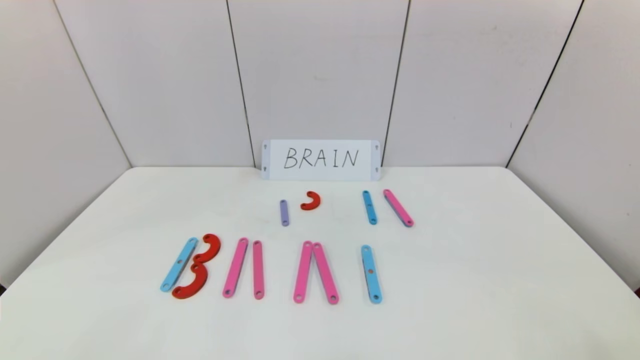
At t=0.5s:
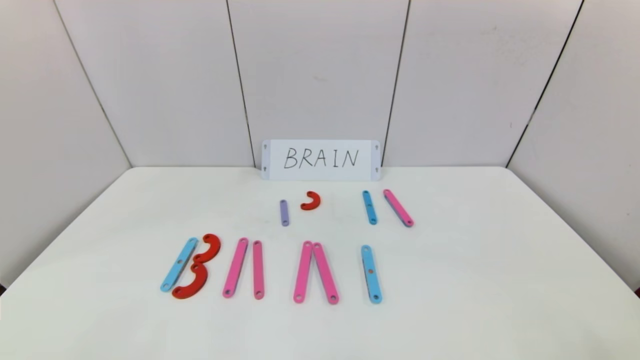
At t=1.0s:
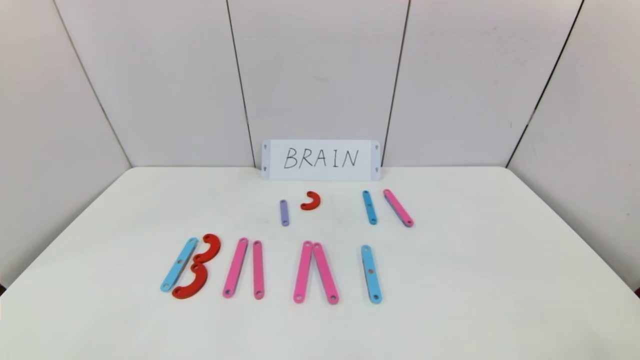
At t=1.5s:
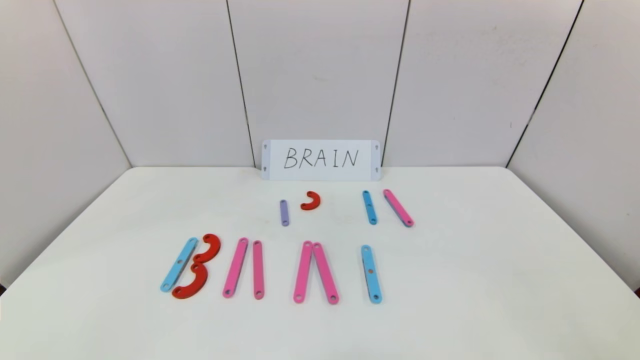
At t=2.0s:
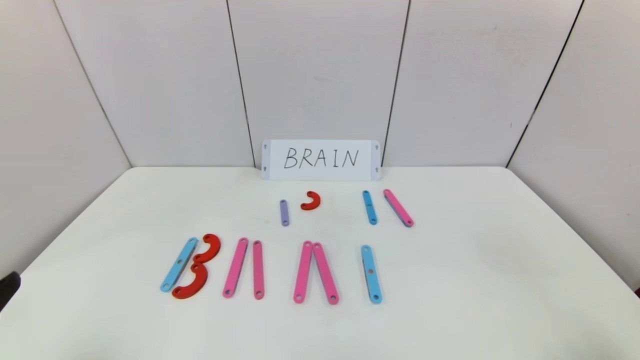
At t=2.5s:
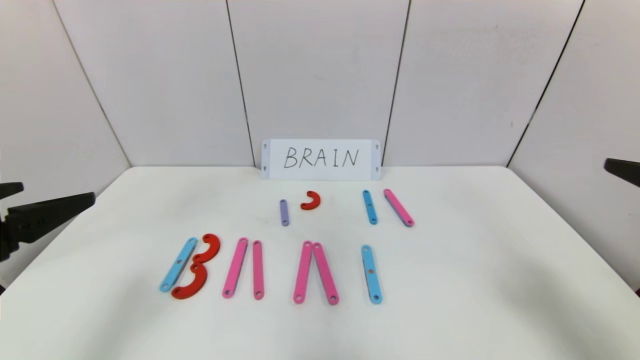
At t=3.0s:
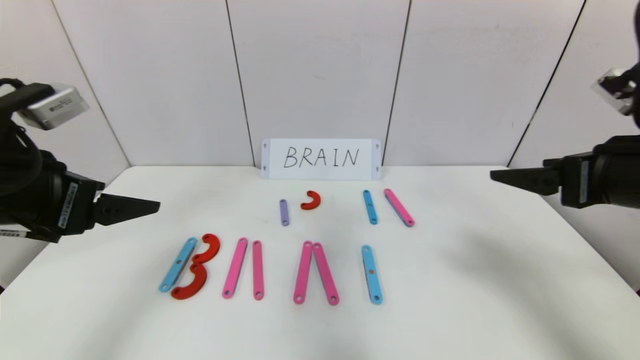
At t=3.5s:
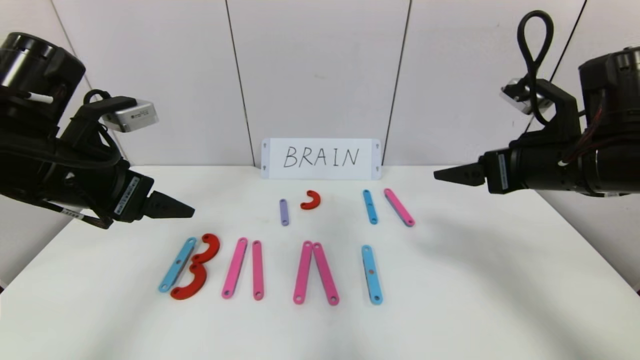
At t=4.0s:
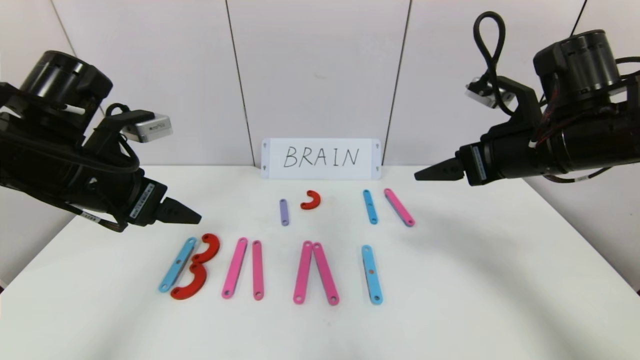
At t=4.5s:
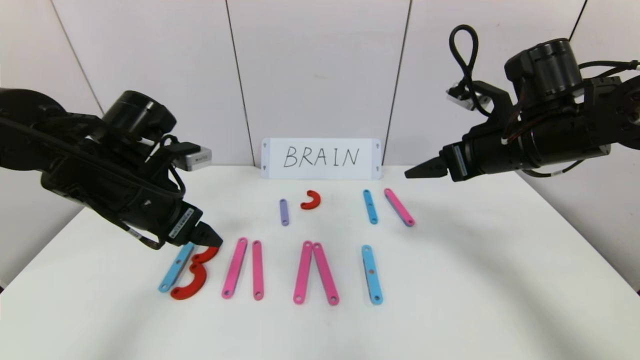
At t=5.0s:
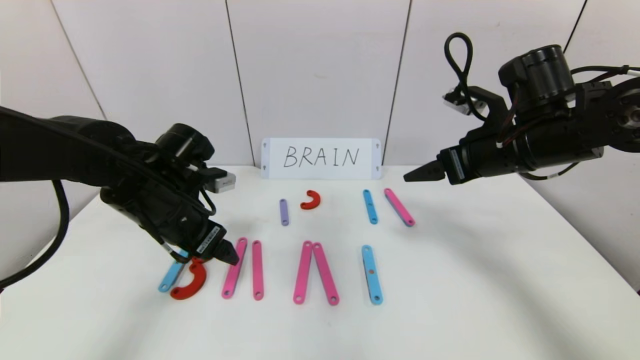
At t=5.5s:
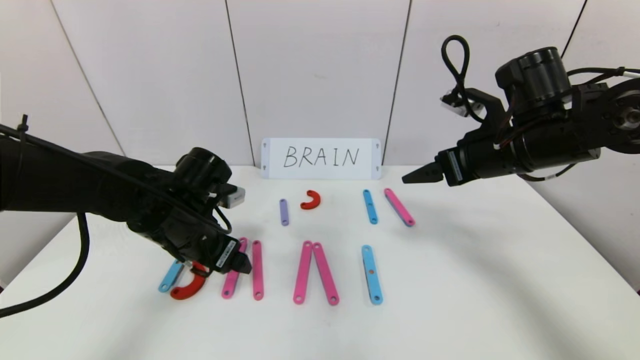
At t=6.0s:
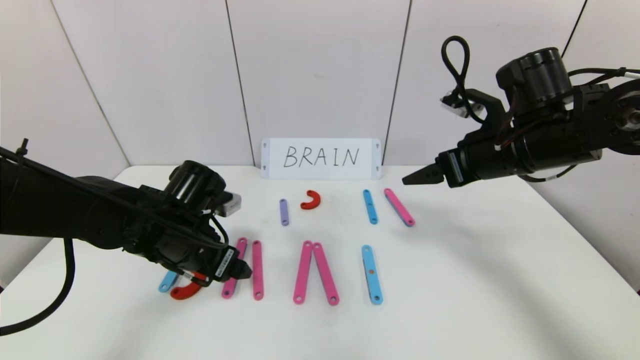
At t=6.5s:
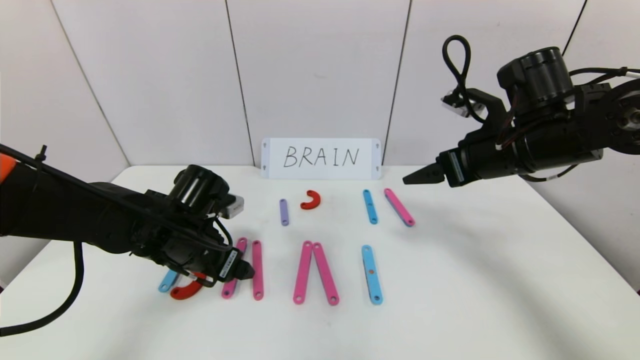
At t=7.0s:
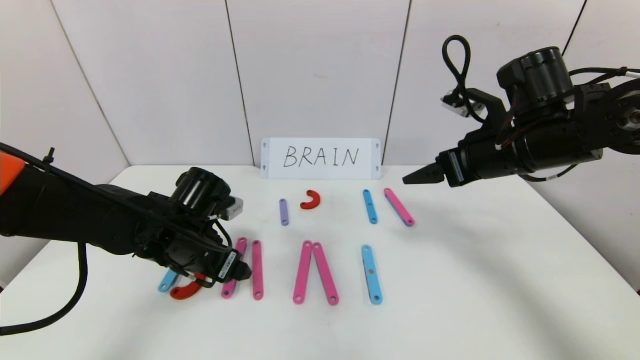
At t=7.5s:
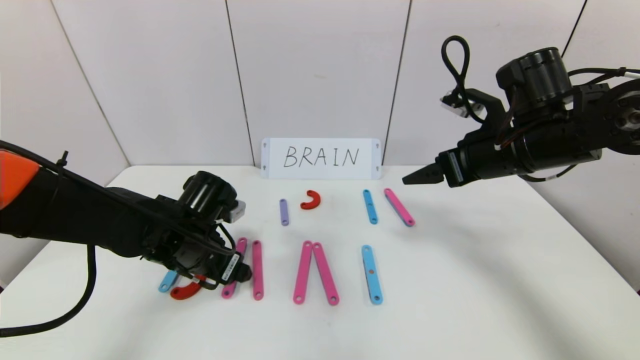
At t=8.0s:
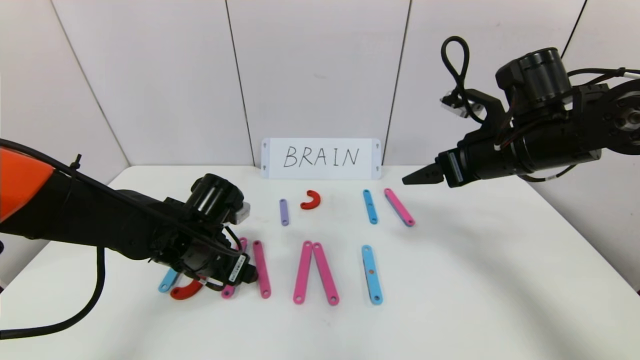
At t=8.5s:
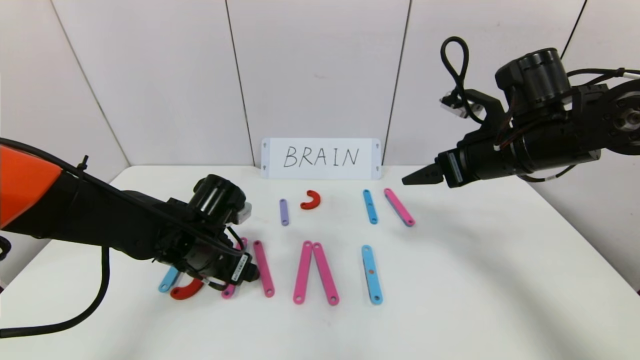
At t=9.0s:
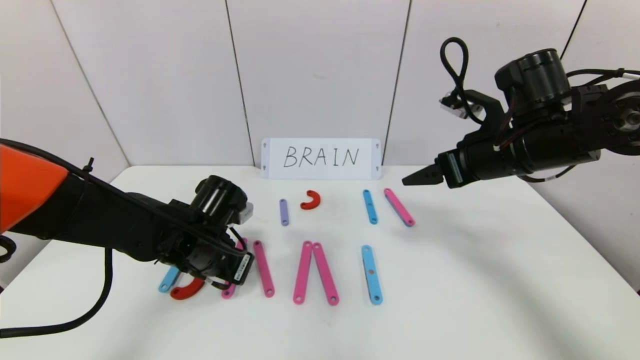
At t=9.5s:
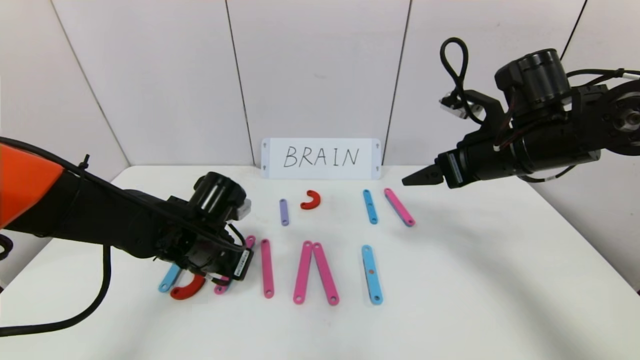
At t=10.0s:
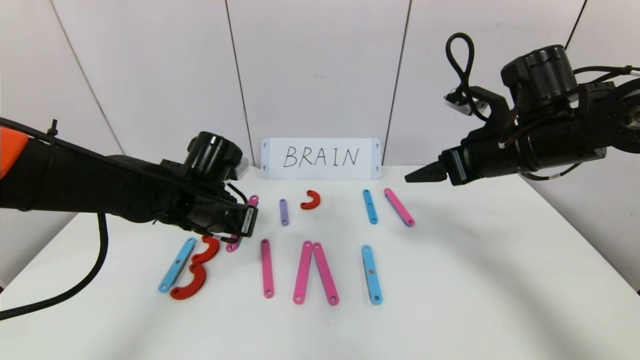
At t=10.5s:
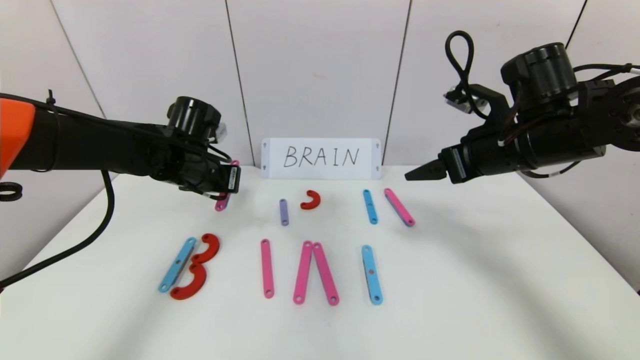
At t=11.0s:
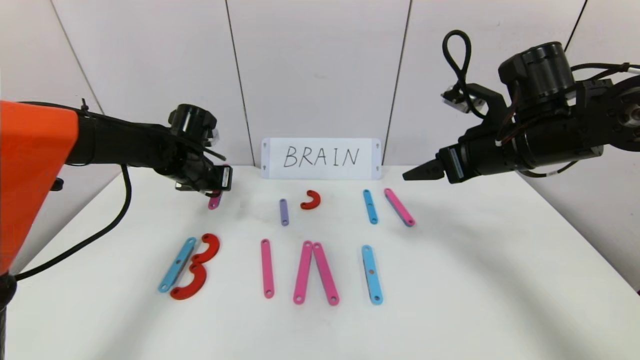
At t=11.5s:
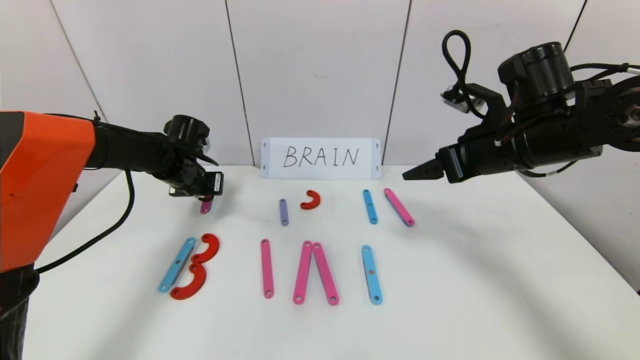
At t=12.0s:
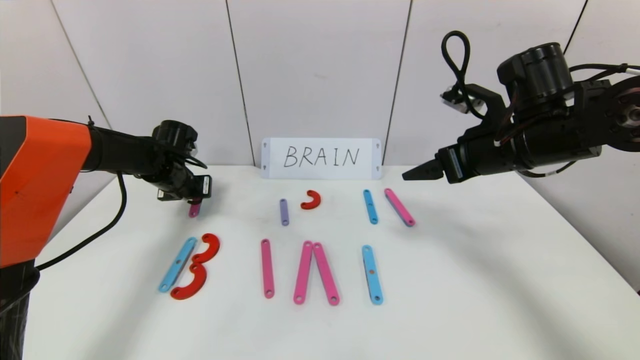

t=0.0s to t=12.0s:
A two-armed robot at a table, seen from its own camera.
Task of the whole recording: rearrange the word baai as brain.
t=2.0s to t=4.0s: The two grippers go roughly 25 cm forward.
t=4.0s to t=6.0s: The left gripper is displaced downward and to the right by approximately 15 cm.
t=6.0s to t=8.0s: There are only small adjustments of the grippers.
t=8.0s to t=10.0s: The left gripper shifts roughly 5 cm upward, and closes.
t=10.0s to t=12.0s: The left gripper moves forward and to the left, roughly 15 cm.

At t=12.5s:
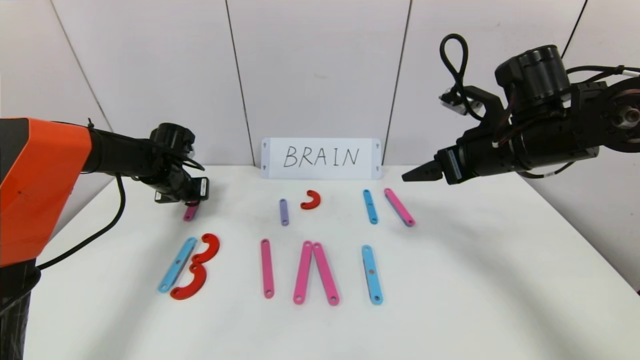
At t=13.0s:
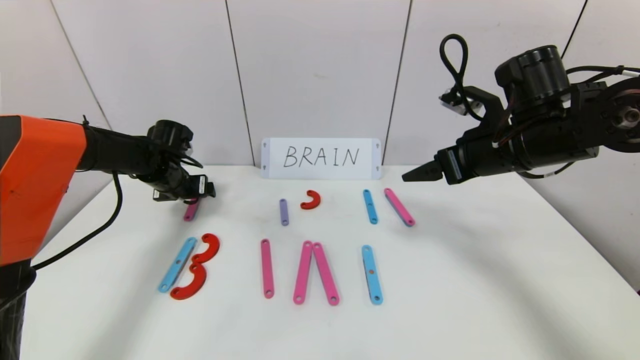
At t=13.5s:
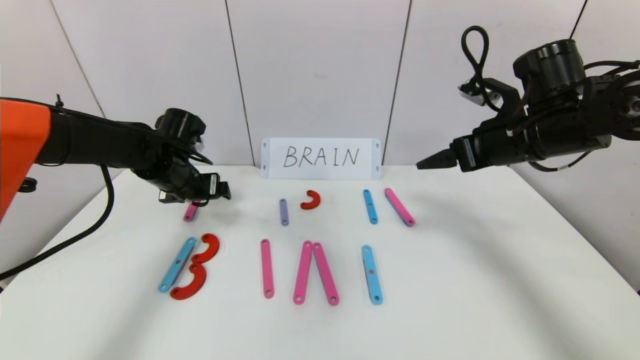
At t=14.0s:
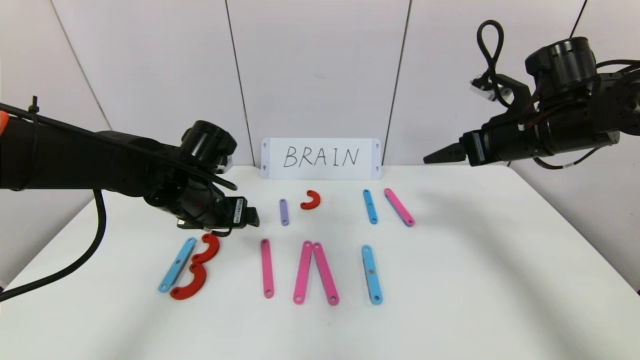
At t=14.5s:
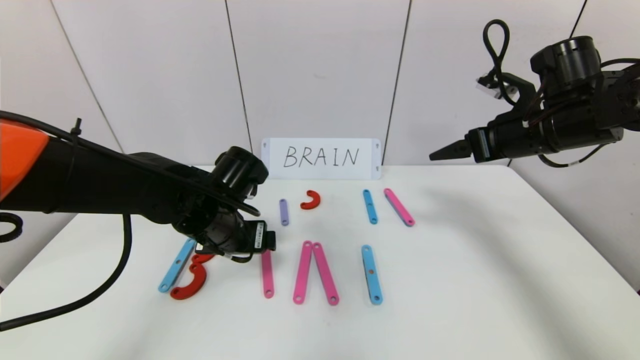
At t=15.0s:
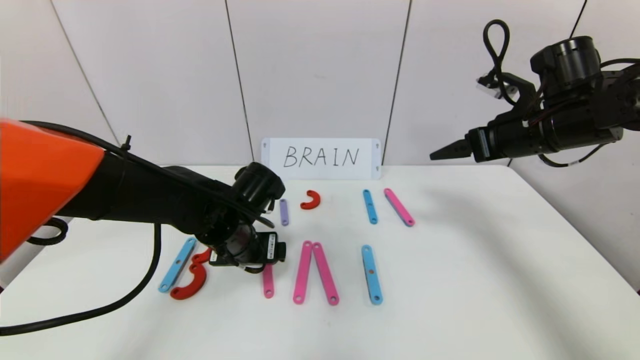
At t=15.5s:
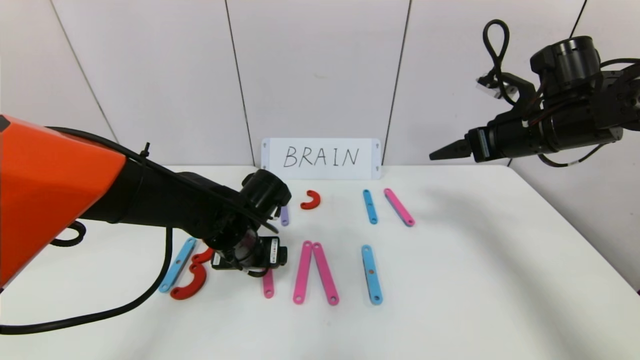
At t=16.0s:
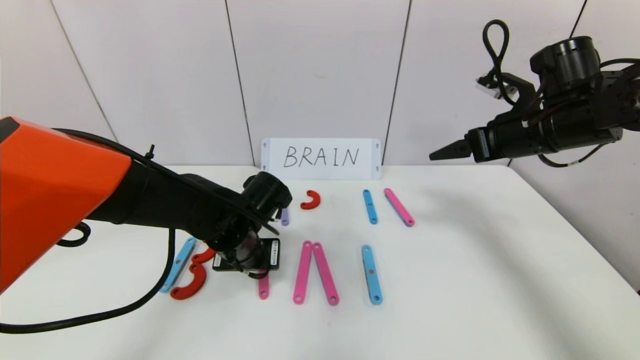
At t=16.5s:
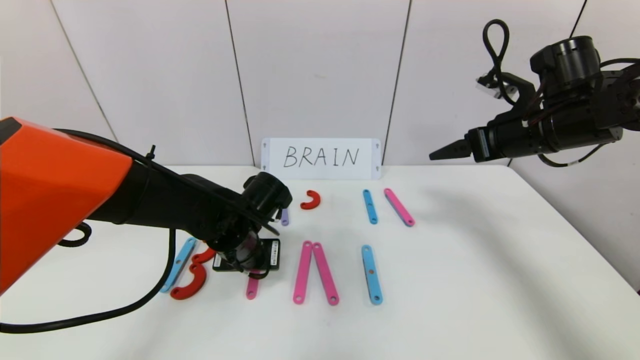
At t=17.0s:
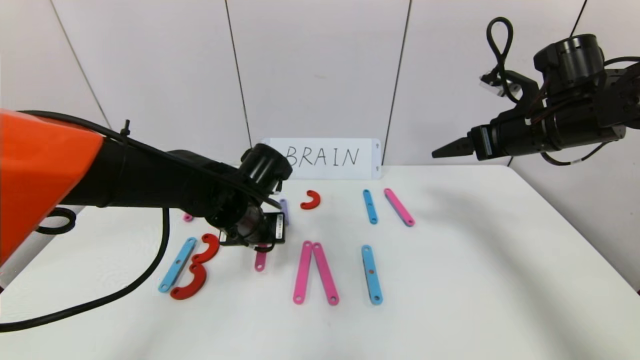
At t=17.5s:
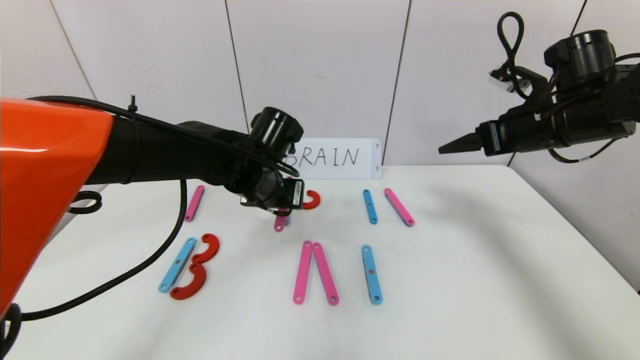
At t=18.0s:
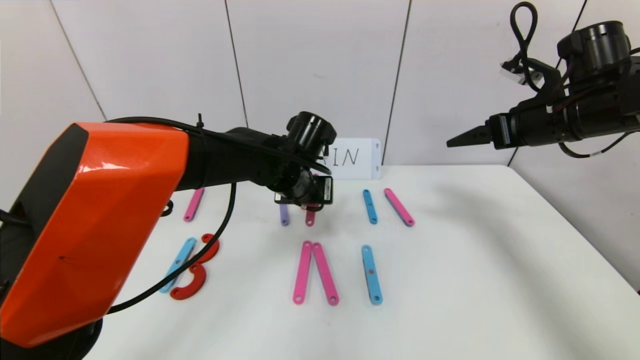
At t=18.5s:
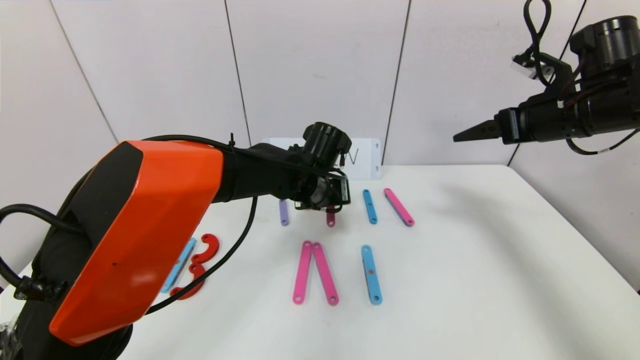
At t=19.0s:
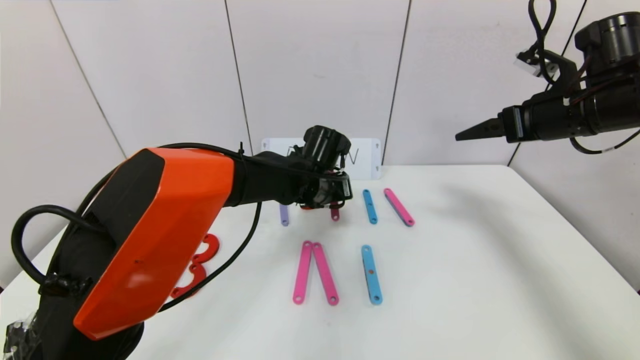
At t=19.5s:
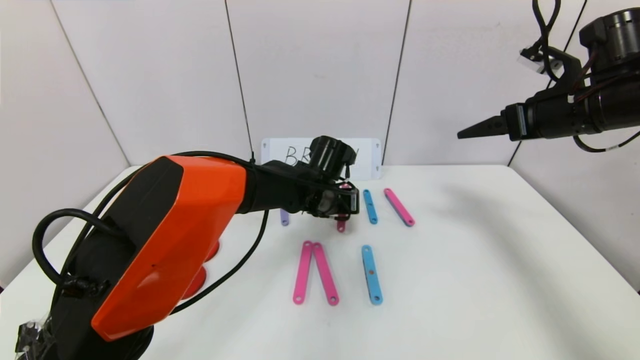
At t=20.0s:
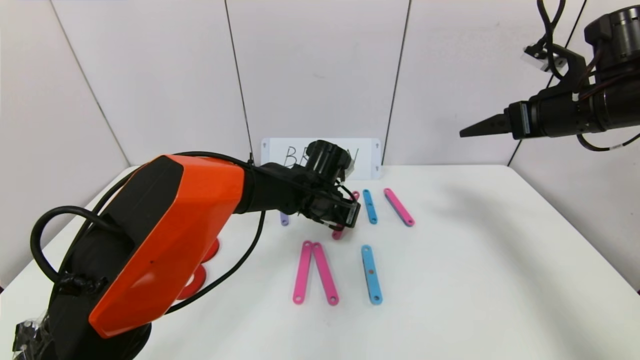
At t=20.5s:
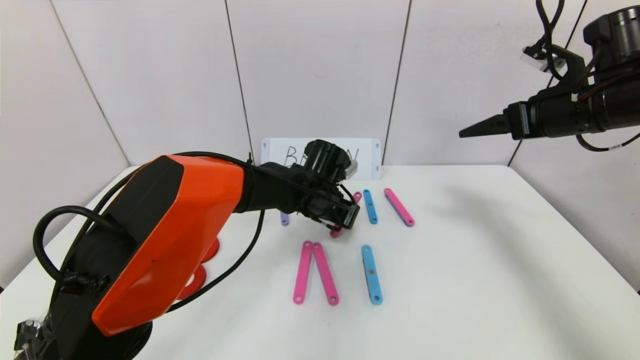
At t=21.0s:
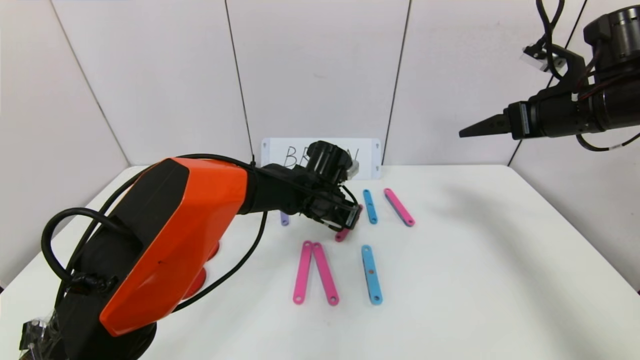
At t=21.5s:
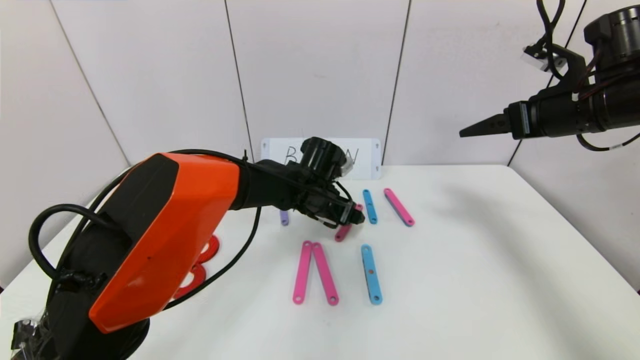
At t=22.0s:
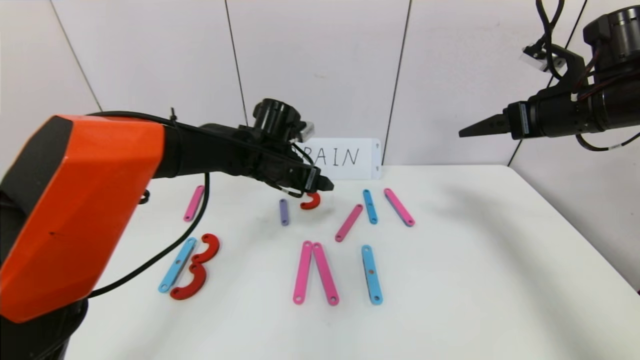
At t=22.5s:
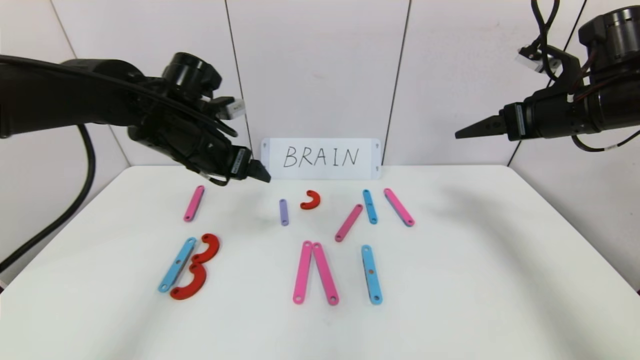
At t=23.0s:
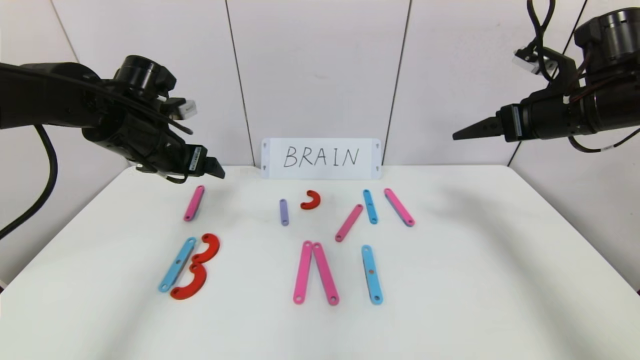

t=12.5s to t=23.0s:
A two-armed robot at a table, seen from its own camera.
Task of the whole recording: rearrange the word baai as brain.
Step, t=12.5s to t=22.0s: Disassemble the second character A.
t=12.5s to t=14.5s: The right gripper is displaced to the right by roughly 5 cm. The left gripper is displaced backward and to the right by some 20 cm, and opens.
t=14.5s to t=16.5s: The left gripper closes up.
t=16.5s to t=19.0s: The left gripper travels to the right and forward by about 15 cm.
t=19.0s to t=21.0s: The left gripper opens up.
t=21.0s to t=23.0s: The left gripper shifts roughly 30 cm to the left and upward, and opens.
